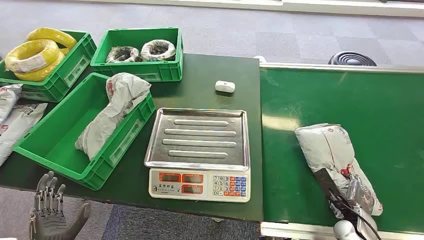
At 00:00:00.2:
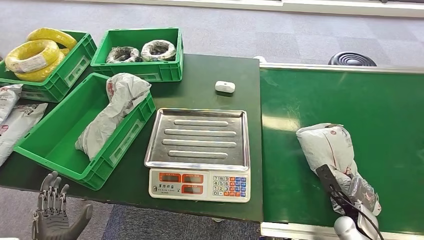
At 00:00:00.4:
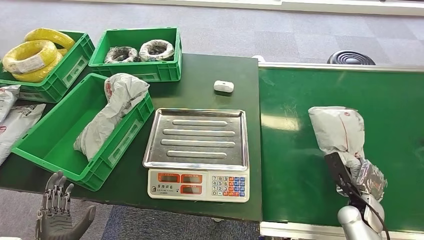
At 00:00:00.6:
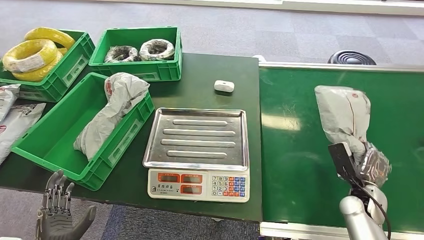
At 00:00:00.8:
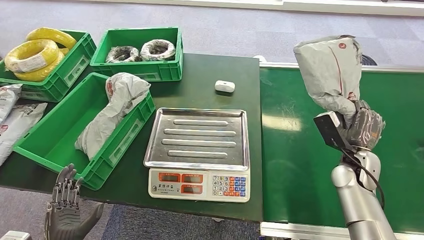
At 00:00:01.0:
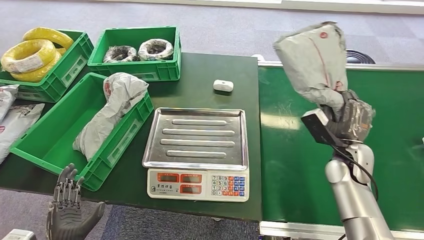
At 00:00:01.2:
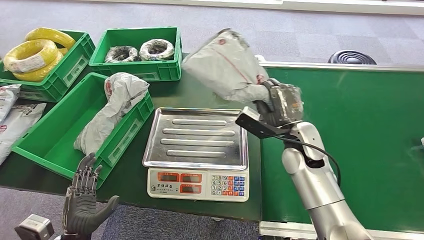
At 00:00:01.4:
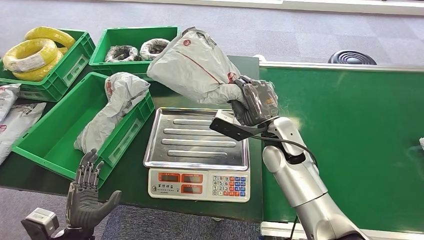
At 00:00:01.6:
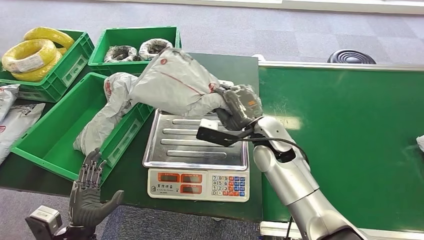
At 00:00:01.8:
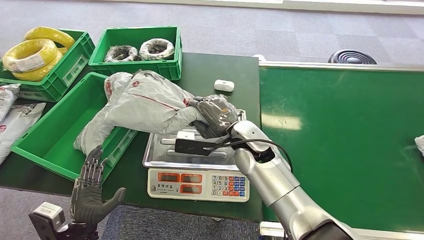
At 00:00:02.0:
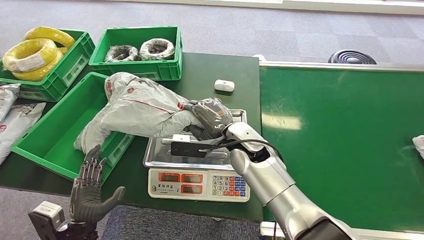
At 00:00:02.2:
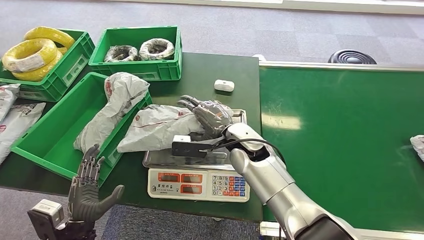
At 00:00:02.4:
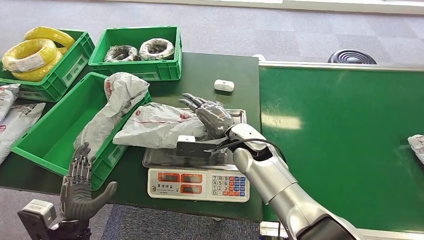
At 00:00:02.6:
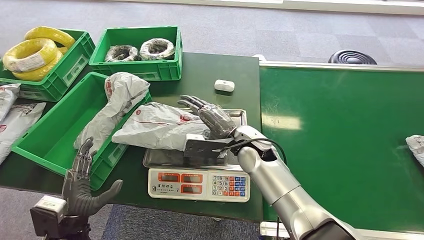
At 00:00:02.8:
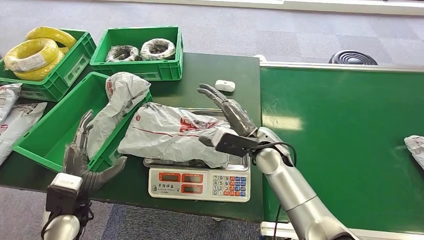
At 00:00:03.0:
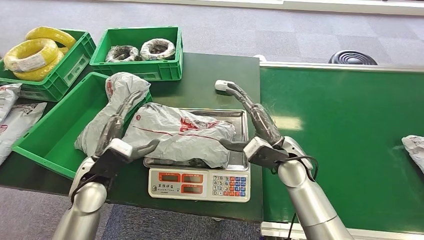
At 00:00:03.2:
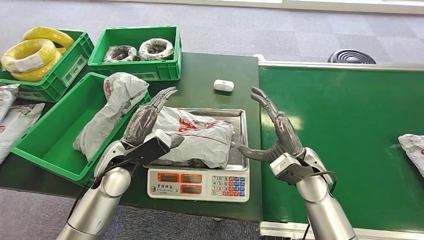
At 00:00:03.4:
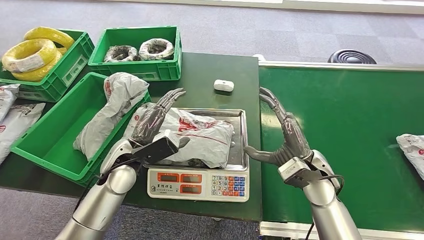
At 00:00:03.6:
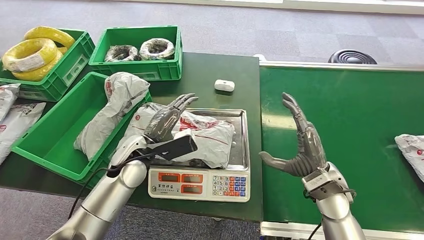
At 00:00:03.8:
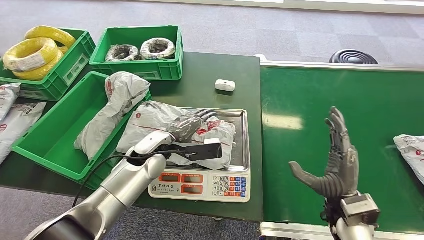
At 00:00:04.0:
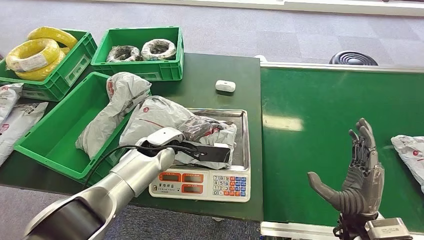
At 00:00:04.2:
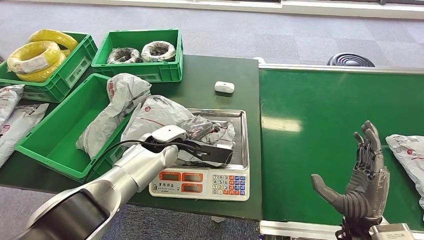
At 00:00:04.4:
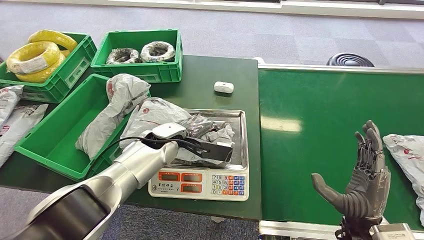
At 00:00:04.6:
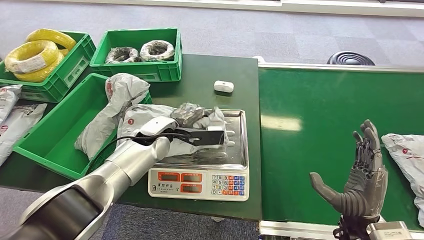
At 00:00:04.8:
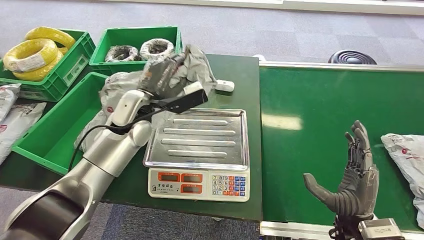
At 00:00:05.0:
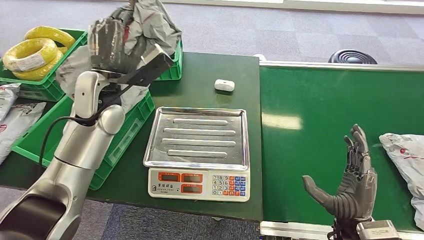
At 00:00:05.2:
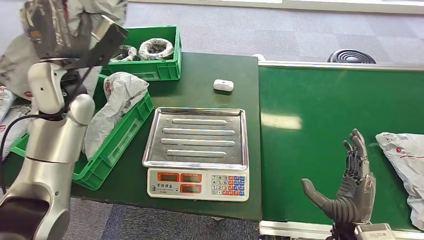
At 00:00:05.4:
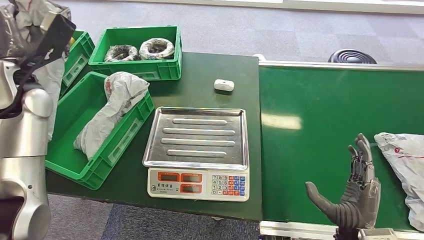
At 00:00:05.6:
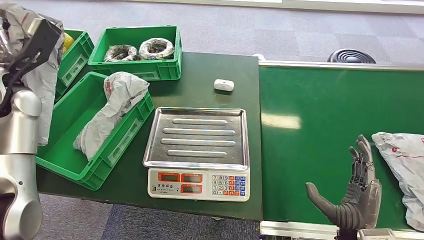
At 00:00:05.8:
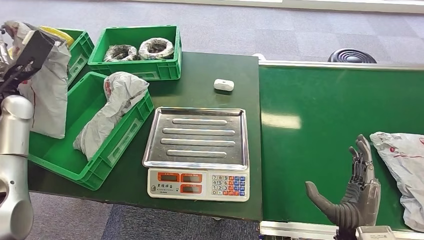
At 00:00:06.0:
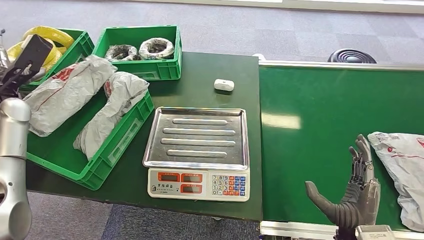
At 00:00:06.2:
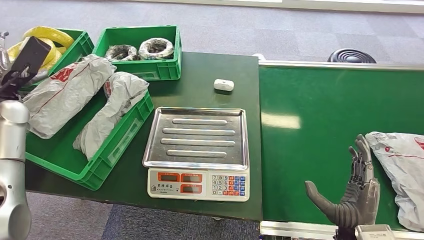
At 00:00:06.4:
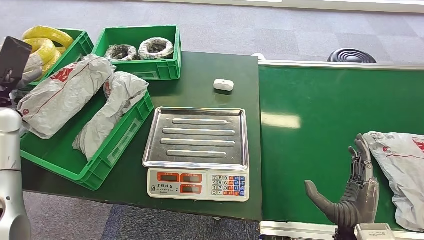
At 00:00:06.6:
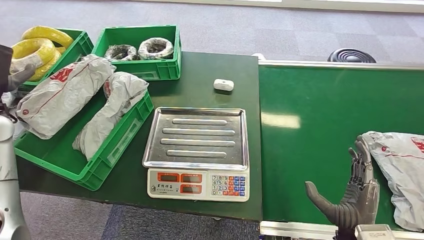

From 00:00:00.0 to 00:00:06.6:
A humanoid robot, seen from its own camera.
Task of the whole recording: Weigh the package on the weighing device and place it in the left basket.
Step, from 00:00:00.0 to 00:00:01.0: Pick up the package from the conveyor belt.
Step, from 00:00:01.2 to 00:00:02.8: Place the package onto the inbound machine.
Step, from 00:00:03.0 to 00:00:05.0: Pick up the package from the inbound machine.
Step, from 00:00:05.4 to 00:00:06.6: Place the package into the parcel locker.
